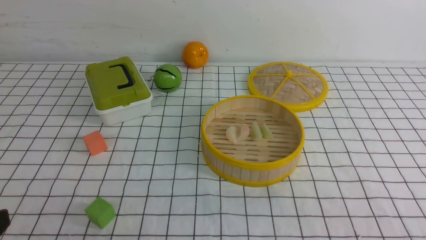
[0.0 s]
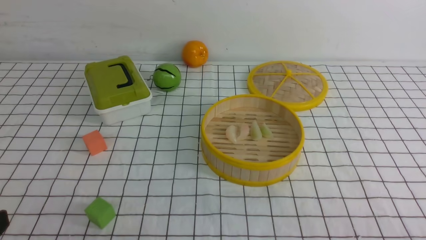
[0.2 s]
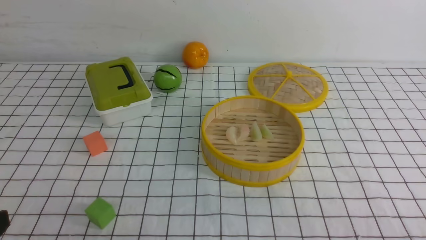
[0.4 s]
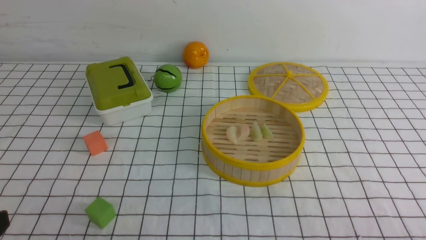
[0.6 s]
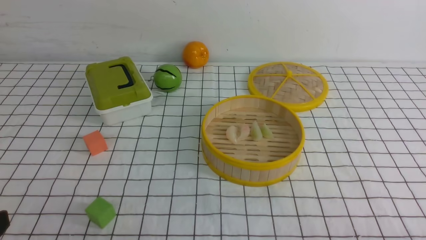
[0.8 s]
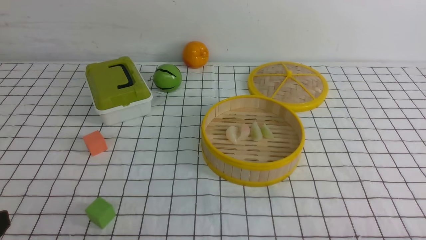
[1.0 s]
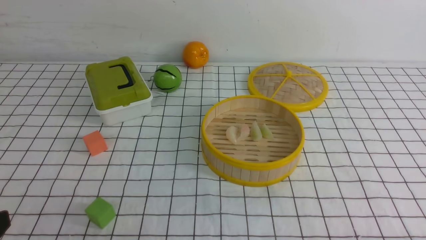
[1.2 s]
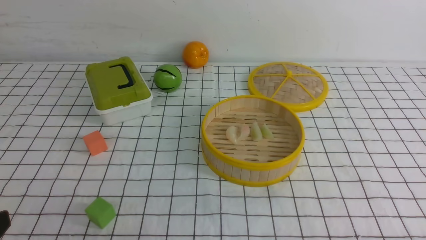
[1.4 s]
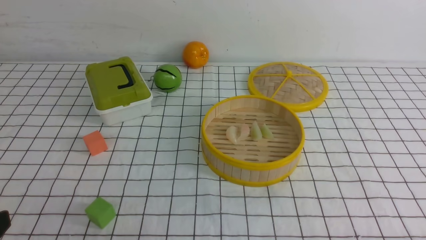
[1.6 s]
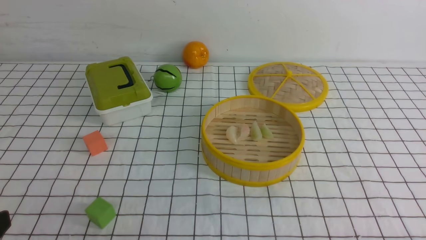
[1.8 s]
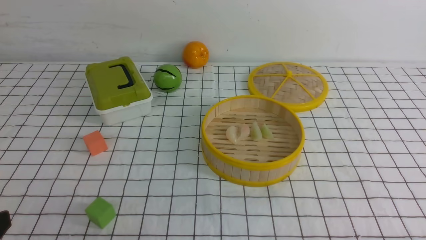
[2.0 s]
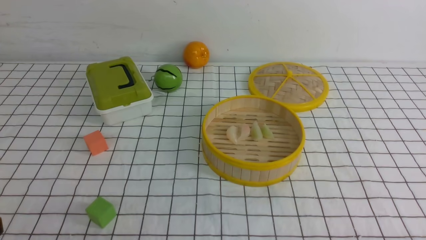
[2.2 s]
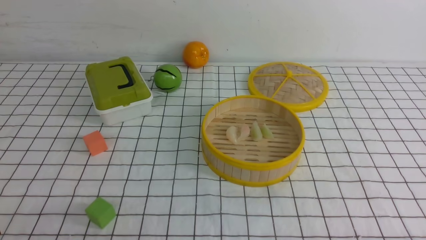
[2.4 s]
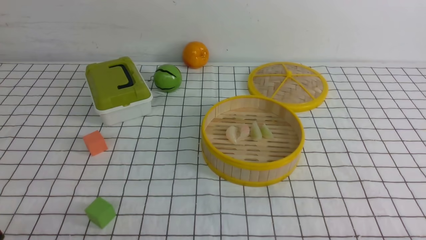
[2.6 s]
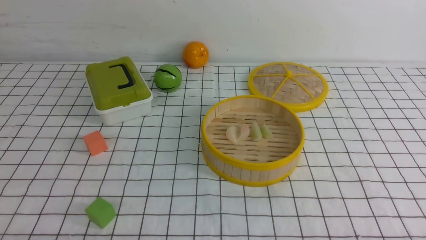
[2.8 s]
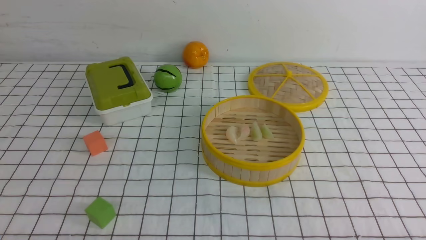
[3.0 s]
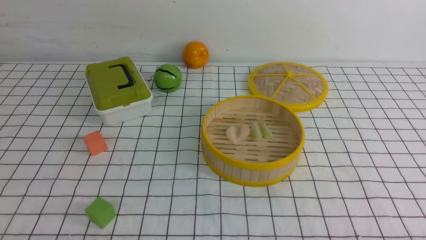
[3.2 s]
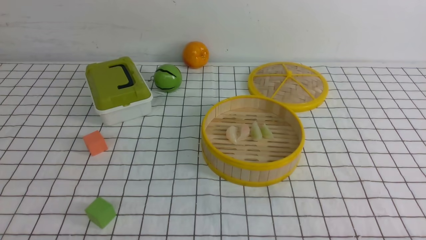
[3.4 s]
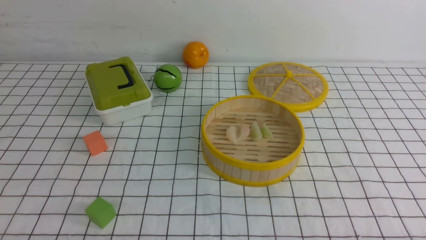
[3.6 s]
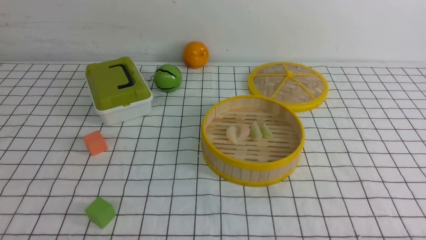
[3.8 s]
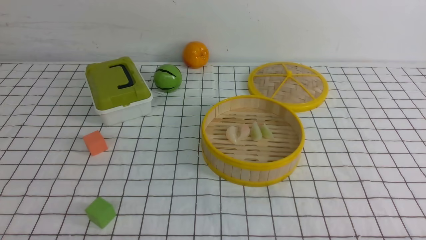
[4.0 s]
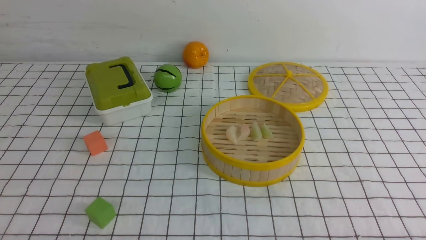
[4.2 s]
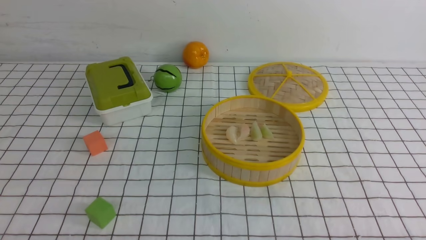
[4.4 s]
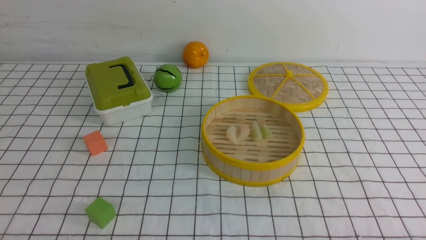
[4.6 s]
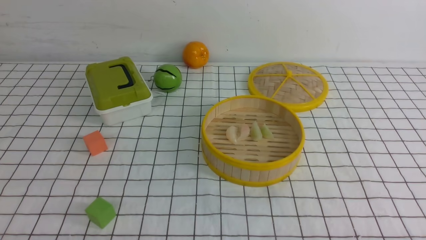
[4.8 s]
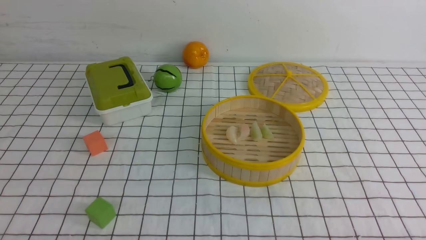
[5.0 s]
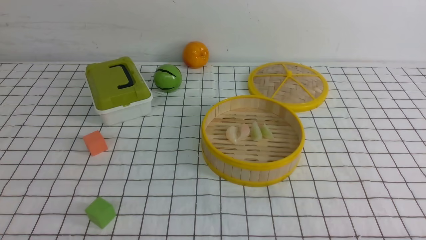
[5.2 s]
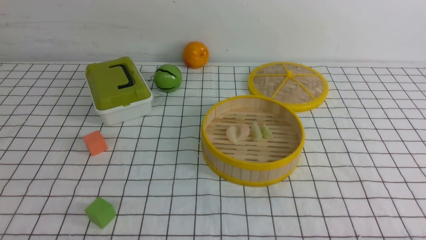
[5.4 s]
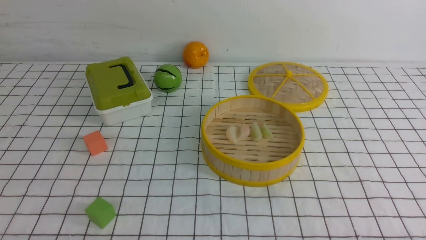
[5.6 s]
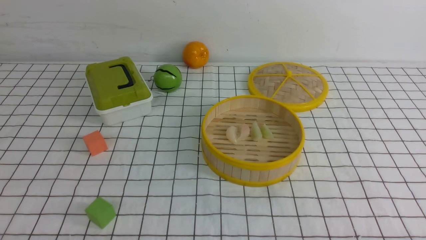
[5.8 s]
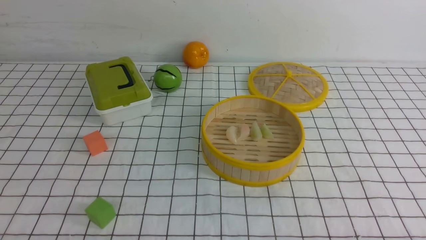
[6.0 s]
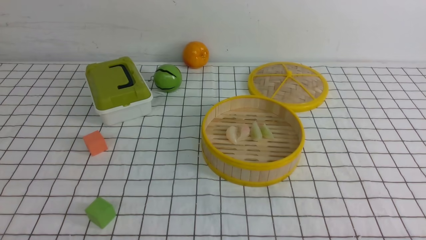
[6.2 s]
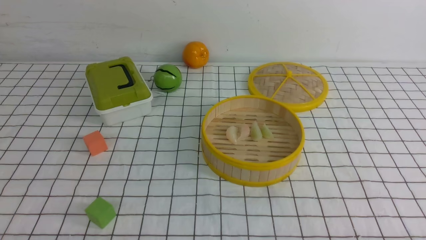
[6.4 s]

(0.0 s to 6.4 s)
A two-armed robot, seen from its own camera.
Task of the whole recording: put the dumplings into the steamer on the table with the white tablecloth.
3.2 s - 6.4 s: The two grippers keep their place.

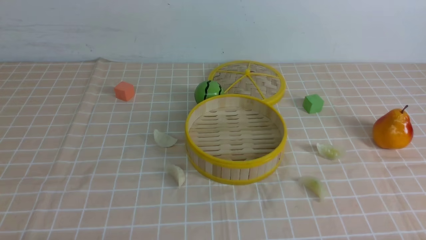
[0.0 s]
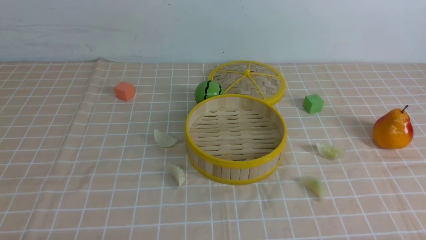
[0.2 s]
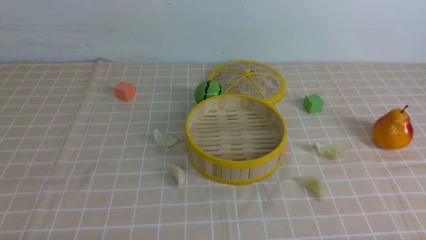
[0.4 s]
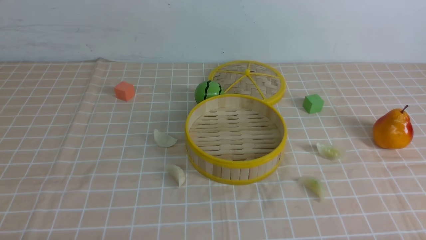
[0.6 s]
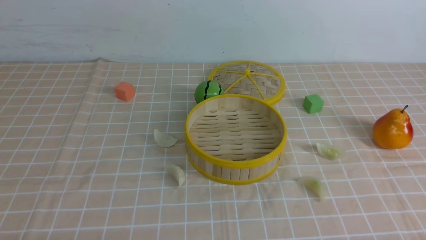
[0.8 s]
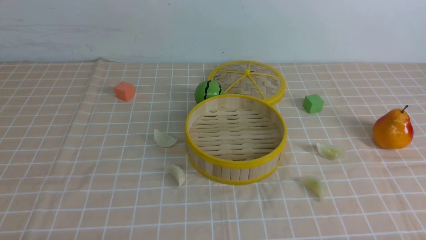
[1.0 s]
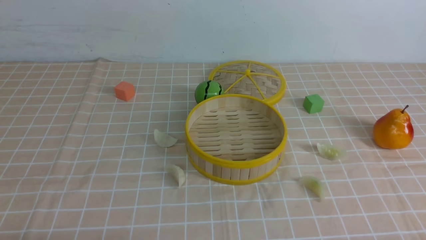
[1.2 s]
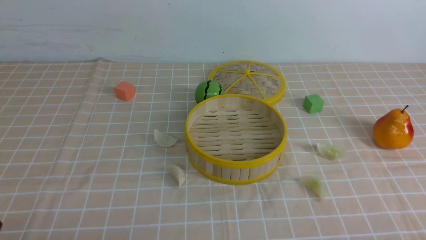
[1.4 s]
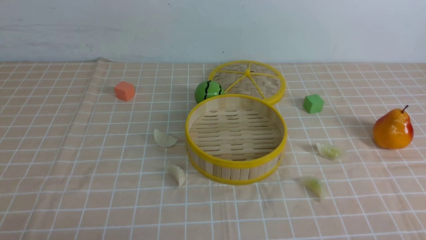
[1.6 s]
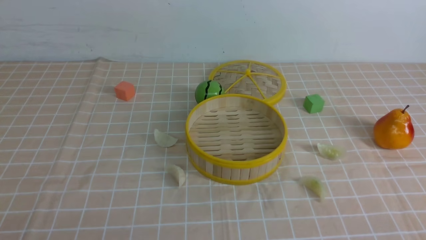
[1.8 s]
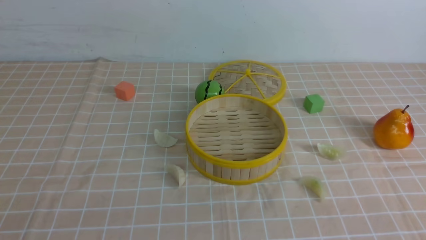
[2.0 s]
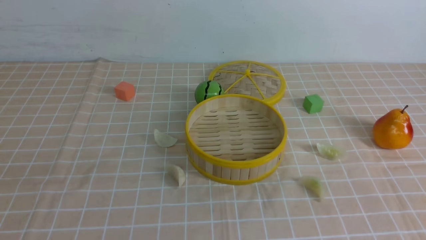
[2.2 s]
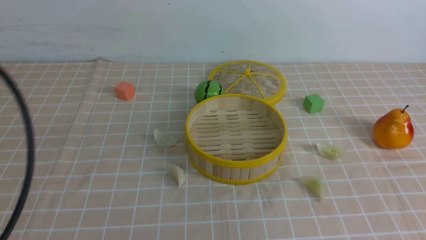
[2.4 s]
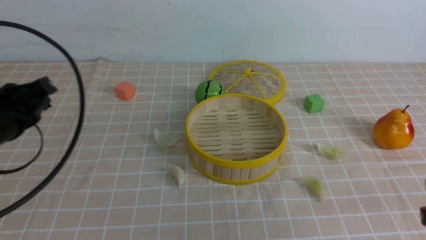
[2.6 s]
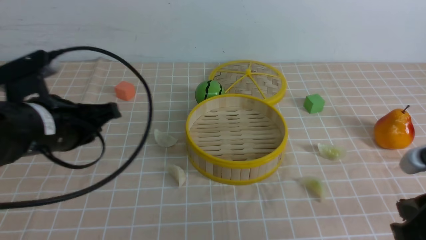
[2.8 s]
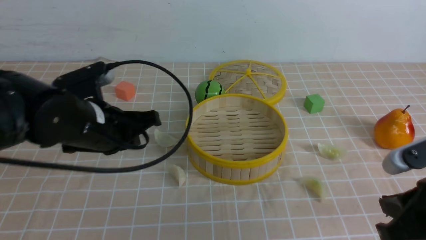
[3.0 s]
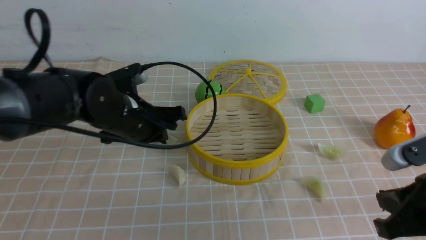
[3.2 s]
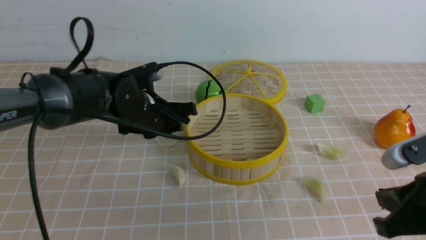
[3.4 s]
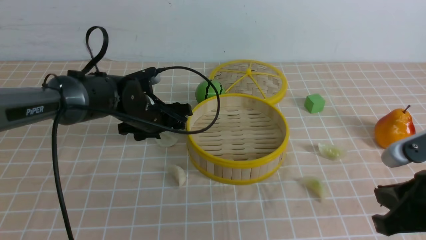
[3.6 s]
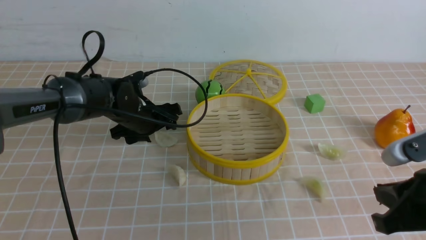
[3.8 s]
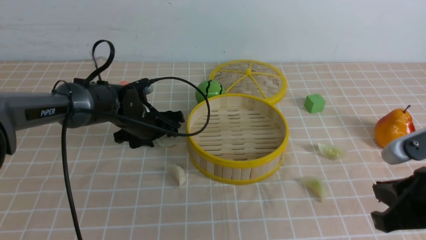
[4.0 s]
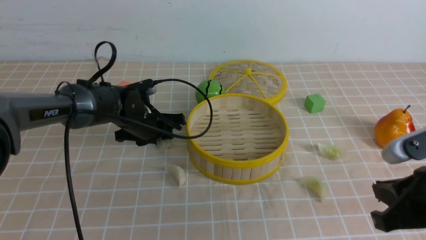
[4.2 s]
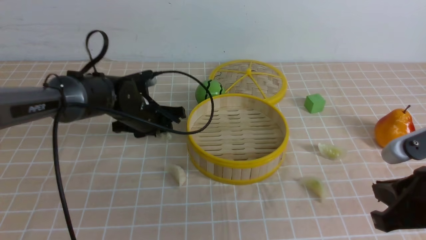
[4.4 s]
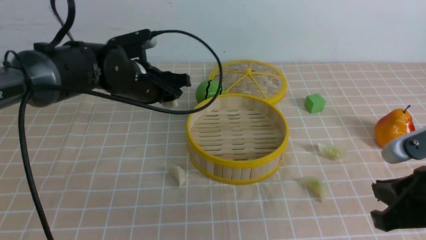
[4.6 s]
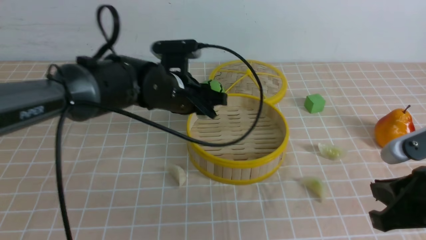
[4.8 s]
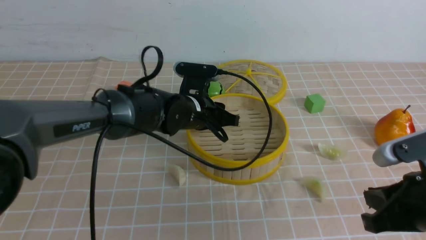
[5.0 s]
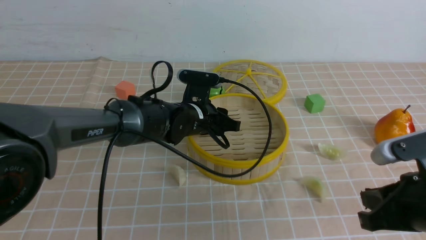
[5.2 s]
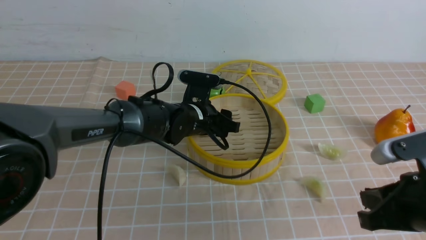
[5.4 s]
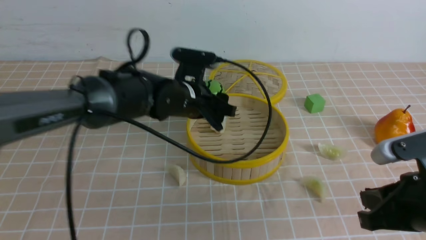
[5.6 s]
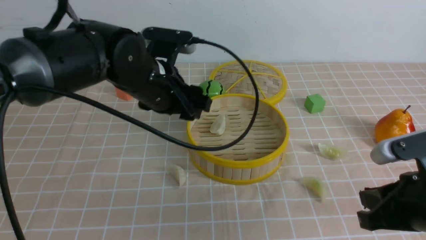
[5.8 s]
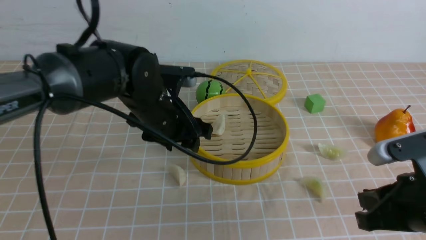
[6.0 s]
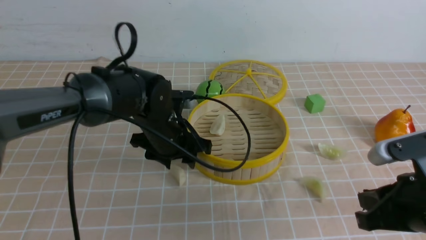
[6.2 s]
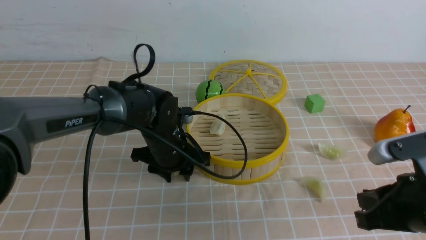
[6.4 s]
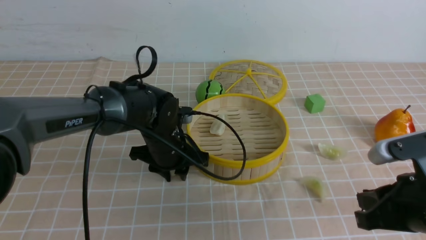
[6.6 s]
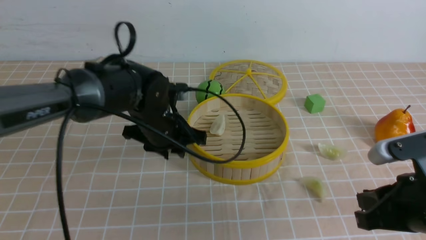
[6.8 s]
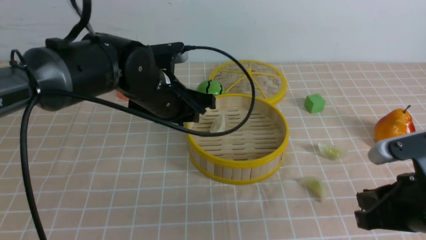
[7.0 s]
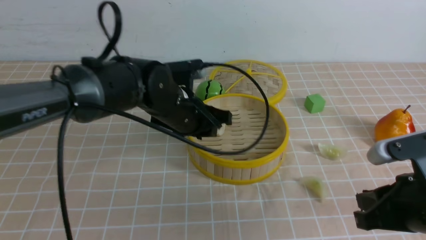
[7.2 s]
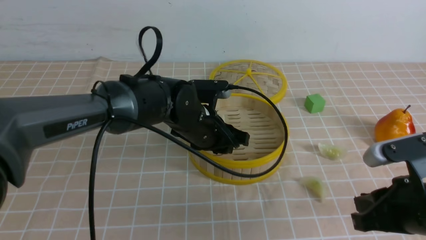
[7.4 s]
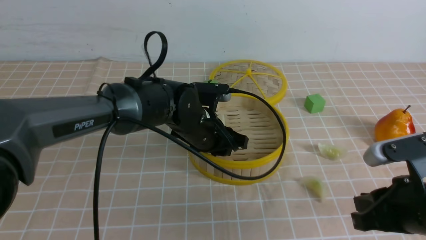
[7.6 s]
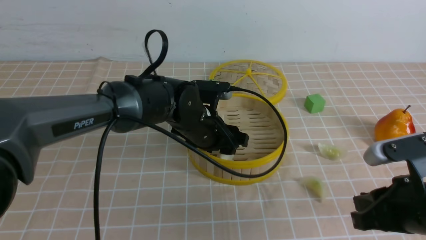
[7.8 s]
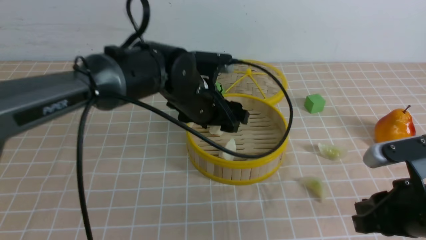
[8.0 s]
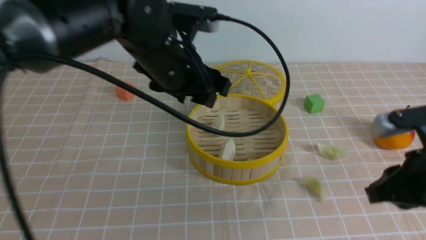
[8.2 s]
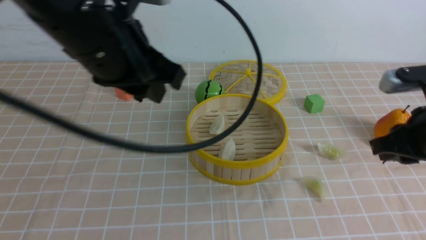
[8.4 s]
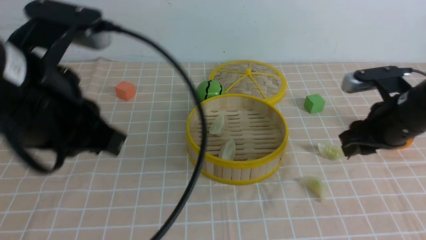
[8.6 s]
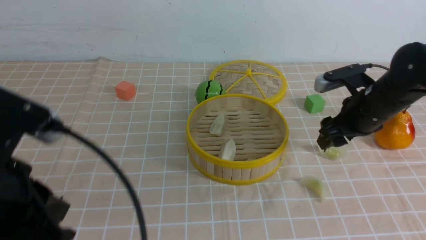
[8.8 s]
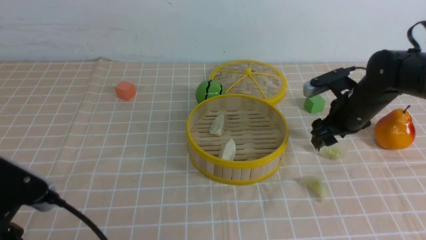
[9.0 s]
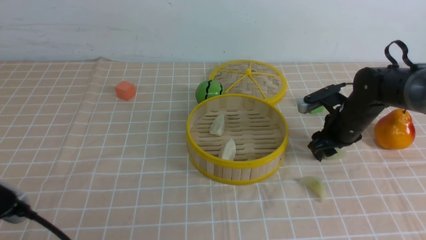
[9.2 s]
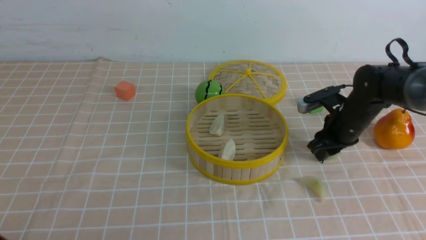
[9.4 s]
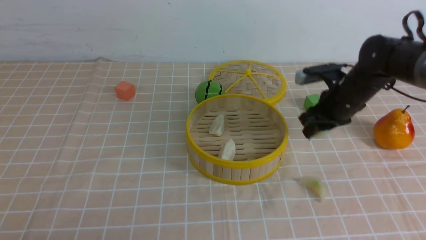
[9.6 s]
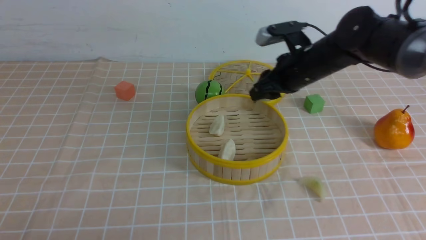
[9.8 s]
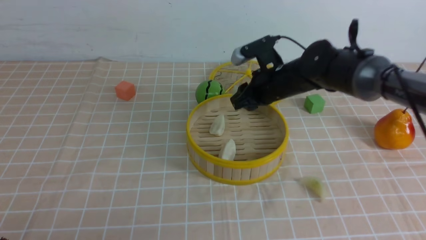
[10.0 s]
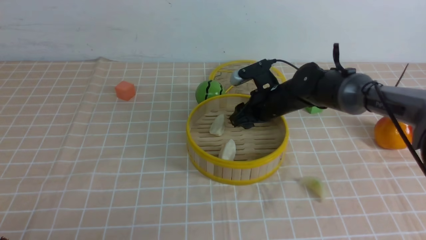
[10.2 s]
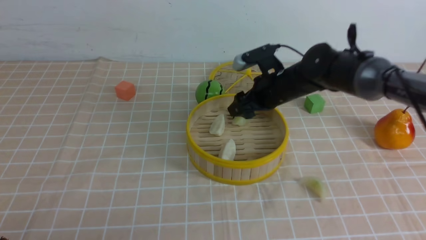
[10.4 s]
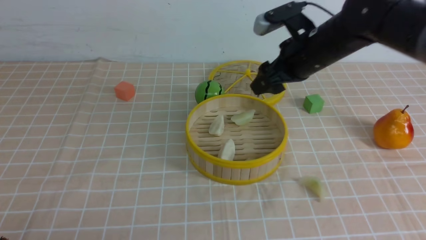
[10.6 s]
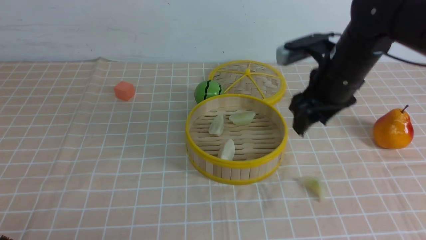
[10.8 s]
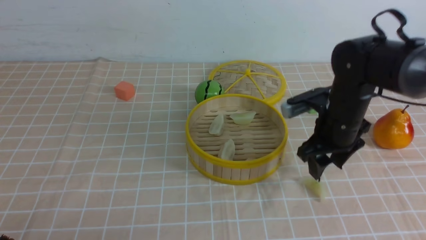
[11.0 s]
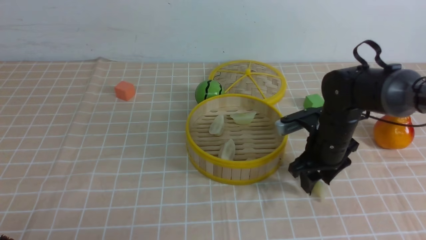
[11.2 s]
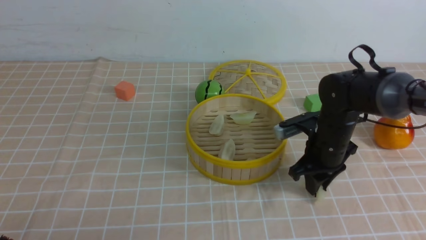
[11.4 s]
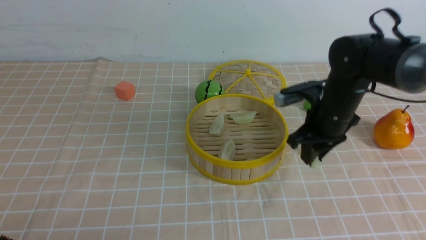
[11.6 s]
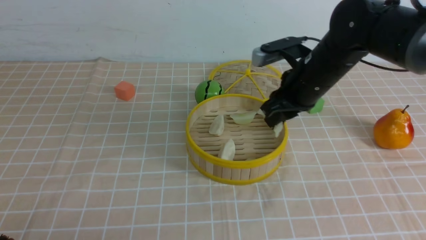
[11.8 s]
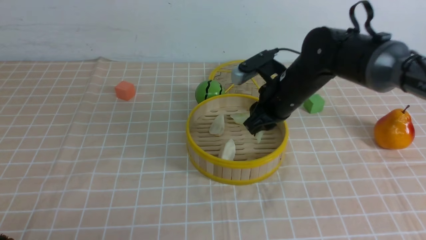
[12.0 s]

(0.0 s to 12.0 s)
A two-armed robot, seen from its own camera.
Task of the whole recording: put the dumplings into the steamer on the table with the brown tablecloth.
Step, 0.0 s - 4.0 s: use the left arm to grab a dumpling.
Step, 4.4 s - 5.4 s: use the left arm to put the dumpling into the steamer.
Step, 5.8 s - 6.4 s: use the left arm to grab a dumpling.
Step, 6.8 s - 8.0 s: use the left arm to put the dumpling into the steamer.
Step, 8.2 s - 9.2 s: use the right arm to grab a dumpling.
Step, 9.4 s - 10.4 s: use the right arm to put the dumpling into the steamer.
Step, 10.6 s - 11.2 s: use the right arm to grab a dumpling.
1.6 s - 3.0 s: The right gripper is displaced forward by approximately 10 cm, while the left gripper goes approximately 25 cm forward and to the right.
3.0 s - 4.4 s: The left gripper goes some 15 cm forward and downward, and opens.
4.4 s - 6.0 s: The left gripper is displaced backward by approximately 5 cm.
6.0 s - 7.6 s: The left gripper moves up and down over approximately 5 cm, changing direction 2 times.
7.6 s - 9.0 s: The left gripper goes approximately 30 cm backward and to the left, and closes. Meanwhile the right gripper shifts approximately 25 cm forward, and opens up.
9.0 s - 10.4 s: The right gripper shifts about 15 cm to the left and upward, and closes, then reopens. Meanwhile the left gripper travels backward by roughly 5 cm.
10.4 s - 12.0 s: The right gripper goes up and down, some 10 cm each way, reversing 2 times, and closes.
